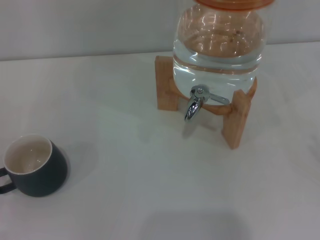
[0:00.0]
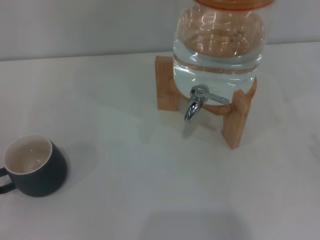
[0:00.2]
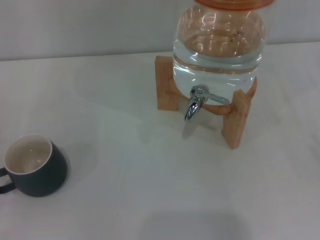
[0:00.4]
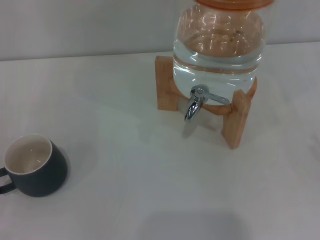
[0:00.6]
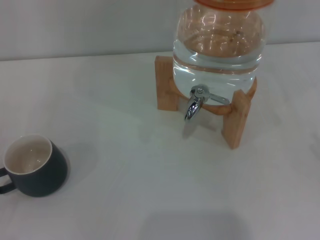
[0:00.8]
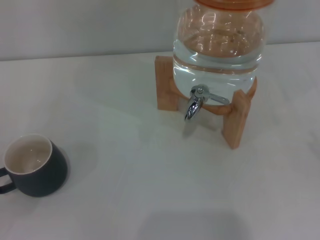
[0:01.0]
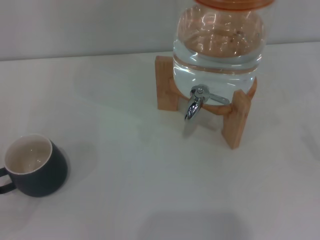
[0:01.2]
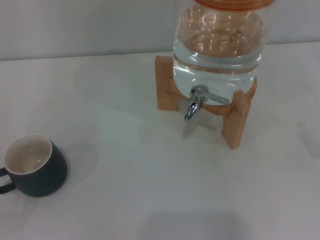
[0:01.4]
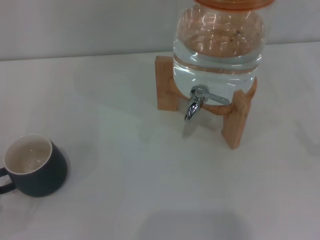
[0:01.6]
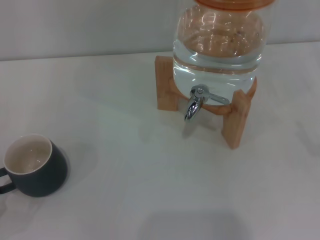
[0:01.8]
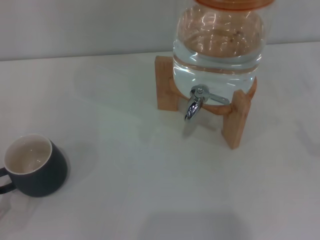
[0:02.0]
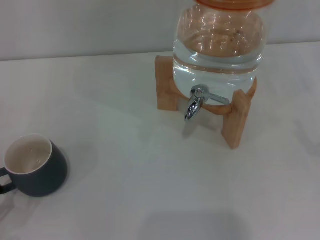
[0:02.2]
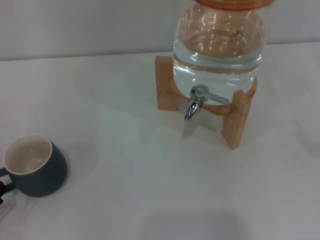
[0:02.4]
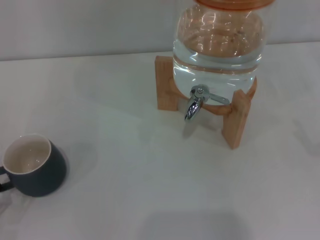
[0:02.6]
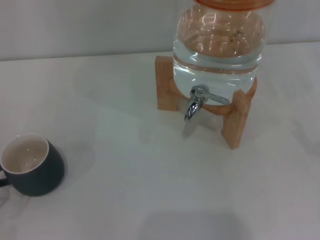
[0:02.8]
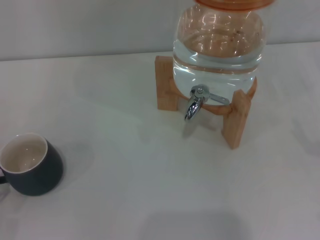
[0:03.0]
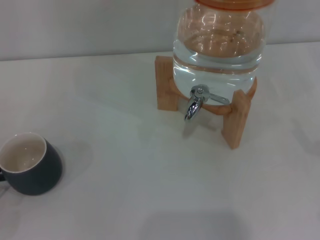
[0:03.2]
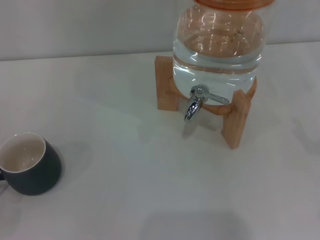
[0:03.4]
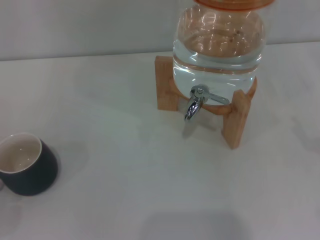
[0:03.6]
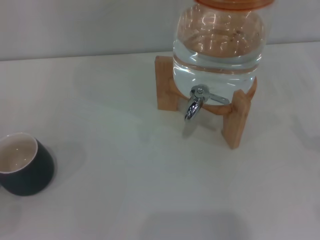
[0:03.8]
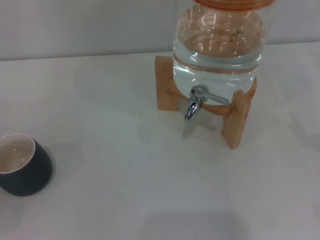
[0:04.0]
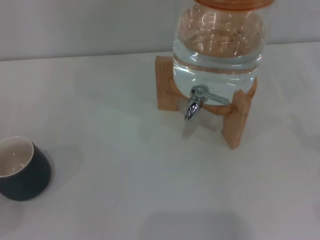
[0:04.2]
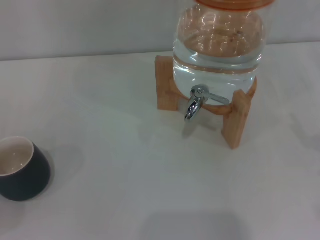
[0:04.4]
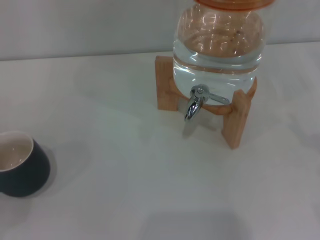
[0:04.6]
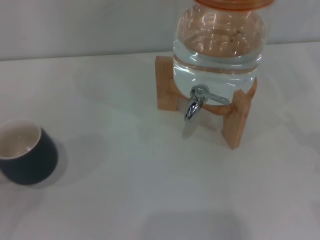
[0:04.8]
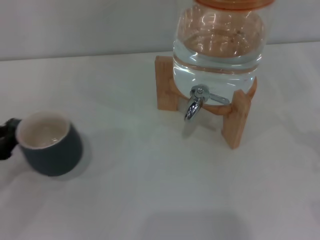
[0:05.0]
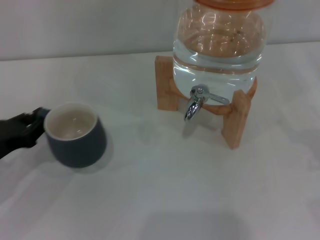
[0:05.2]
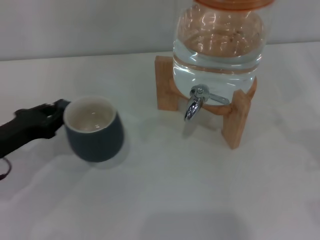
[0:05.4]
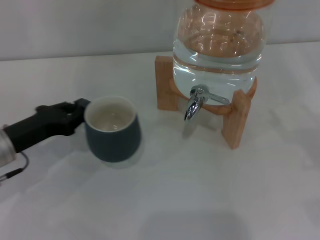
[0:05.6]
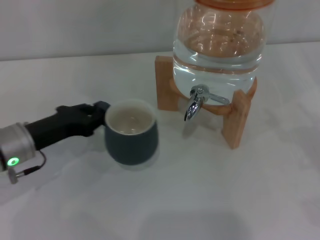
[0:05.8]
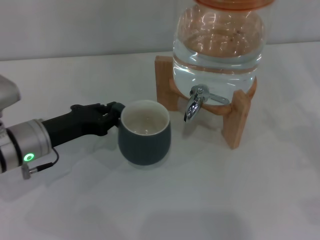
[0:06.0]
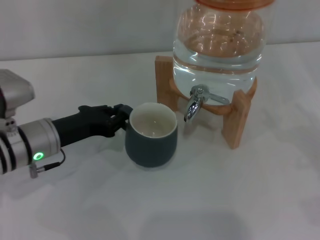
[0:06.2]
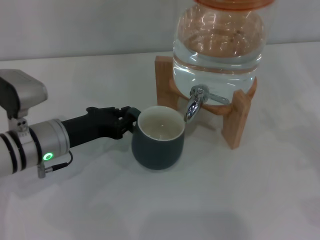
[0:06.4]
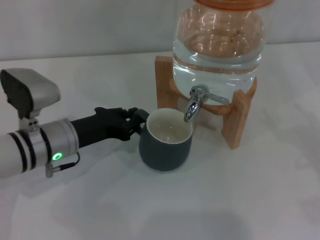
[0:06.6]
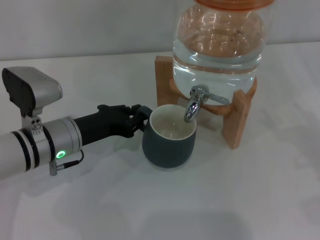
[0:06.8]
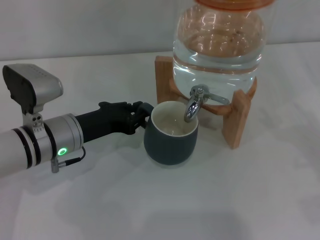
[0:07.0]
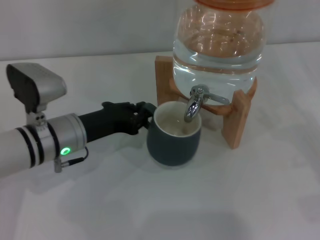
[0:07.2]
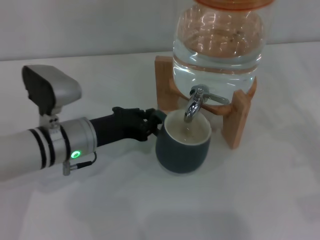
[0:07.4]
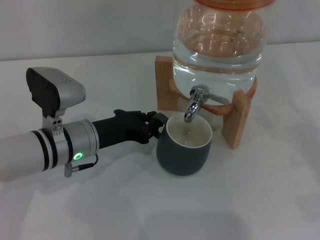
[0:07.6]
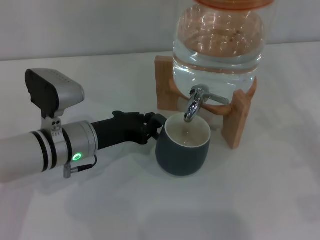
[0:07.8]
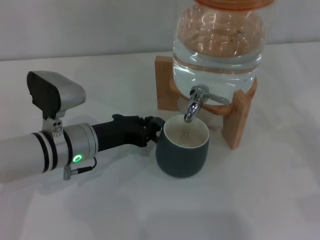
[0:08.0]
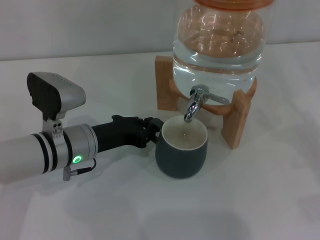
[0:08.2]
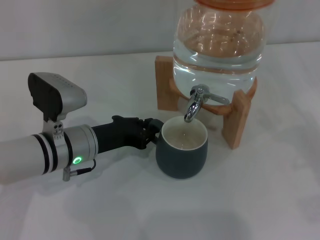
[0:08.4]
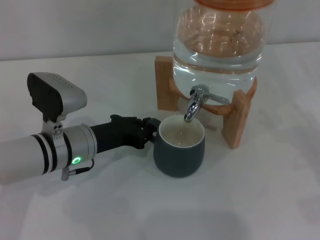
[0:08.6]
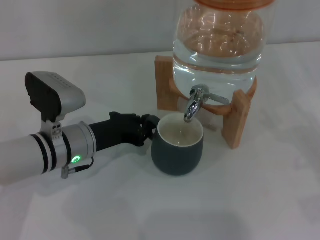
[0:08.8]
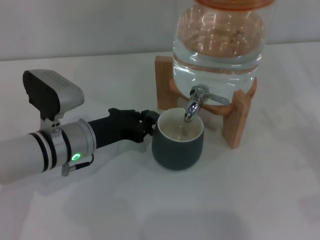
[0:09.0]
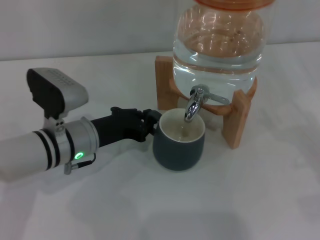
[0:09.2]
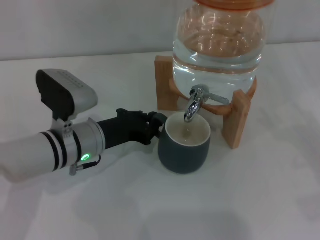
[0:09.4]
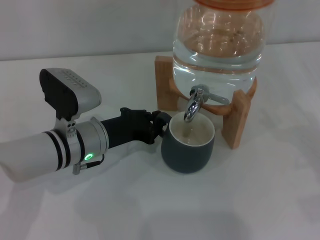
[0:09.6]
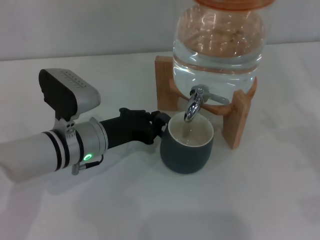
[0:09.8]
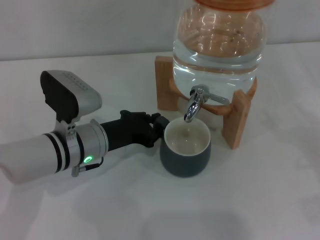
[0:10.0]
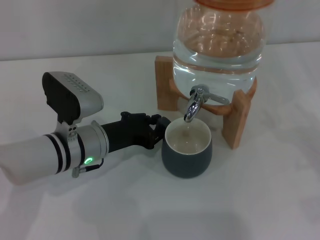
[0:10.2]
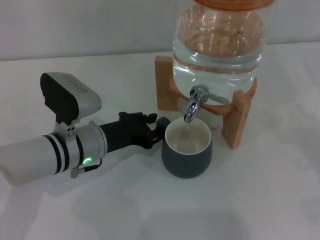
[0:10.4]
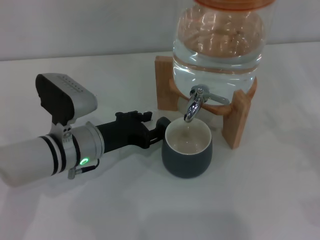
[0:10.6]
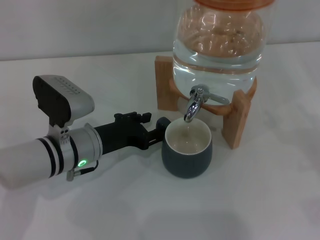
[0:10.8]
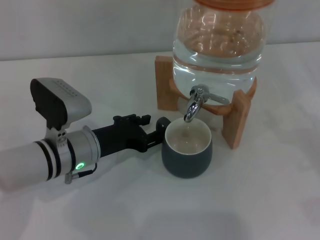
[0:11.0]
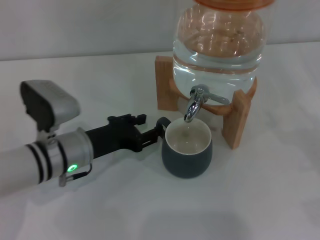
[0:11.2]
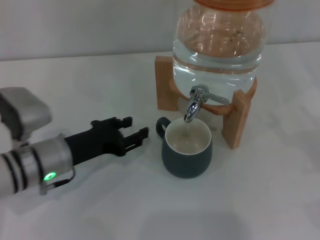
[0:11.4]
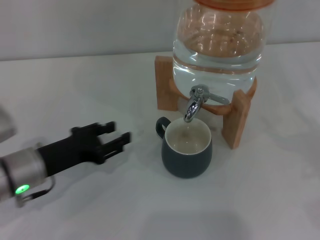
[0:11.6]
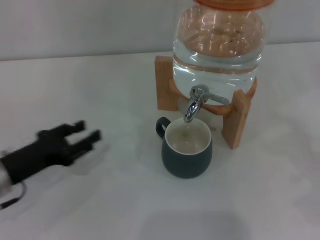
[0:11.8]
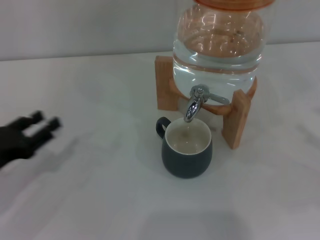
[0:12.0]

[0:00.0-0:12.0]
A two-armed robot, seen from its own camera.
Task of the whole recording: the left gripper pick up the black cup and place it horizontally under the faucet, the right gripper turn on the faucet to fill the cup, and then turn off the faucet.
Step, 0:00.0 to 0:11.2: Move the cup beneath the water dispenser nozzle with the left gripper.
0:01.6 to 0:03.0: The left gripper shifts by some 5 cm.
0:03.0 to 0:04.4: The left gripper closes.
0:04.4 to 0:06.0: The left gripper shifts approximately 20 cm to the right and forward.
0:06.0 to 0:07.6: The left gripper shifts roughly 5 cm to the right.
0:07.6 to 0:09.0: Both grippers stay put.
0:09.0 to 0:10.4: There are only small adjustments of the grippers.
0:10.4 to 0:12.0: The right gripper goes about 5 cm upward; the left gripper moves to the left and backward, roughly 20 cm, and opens its fingers.

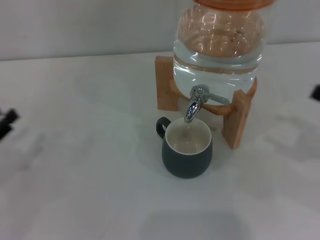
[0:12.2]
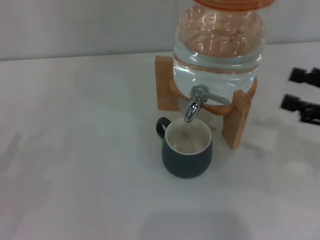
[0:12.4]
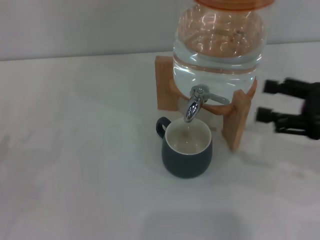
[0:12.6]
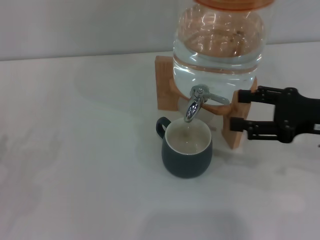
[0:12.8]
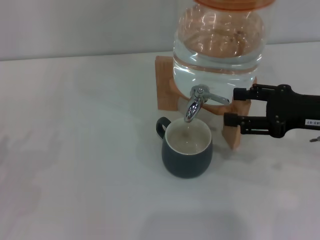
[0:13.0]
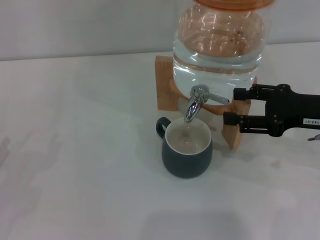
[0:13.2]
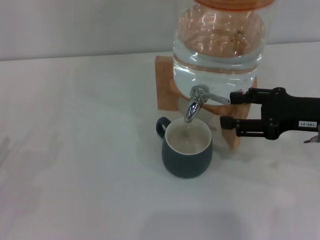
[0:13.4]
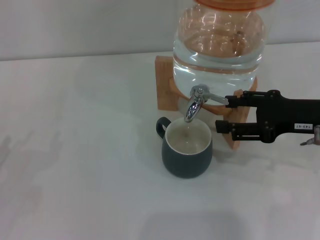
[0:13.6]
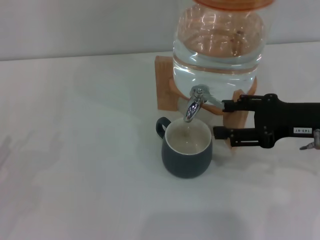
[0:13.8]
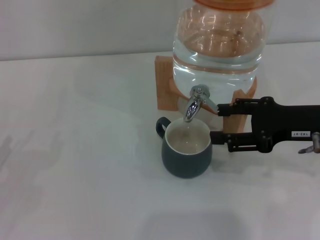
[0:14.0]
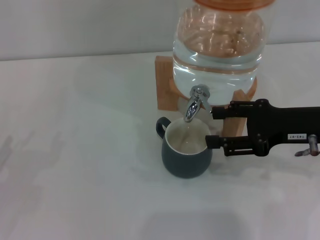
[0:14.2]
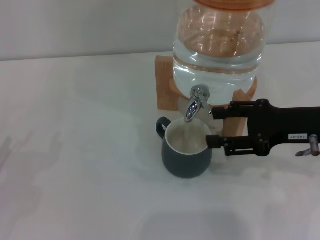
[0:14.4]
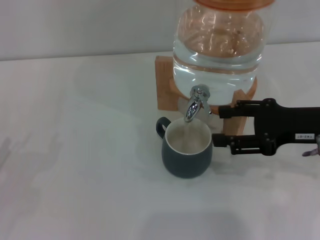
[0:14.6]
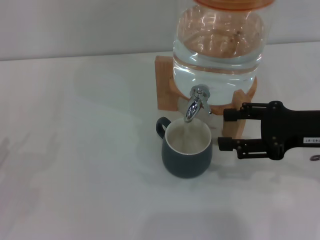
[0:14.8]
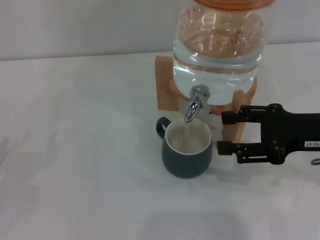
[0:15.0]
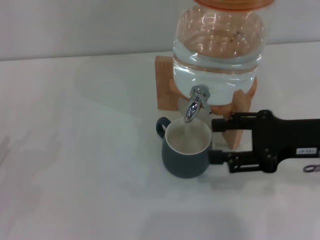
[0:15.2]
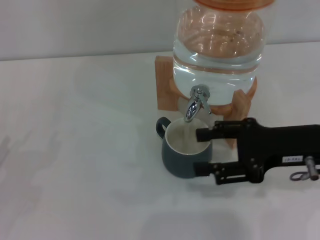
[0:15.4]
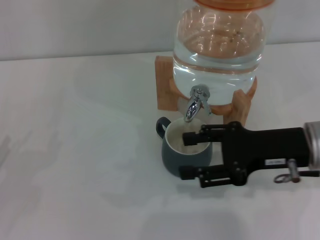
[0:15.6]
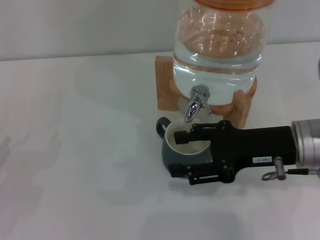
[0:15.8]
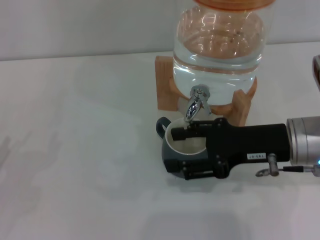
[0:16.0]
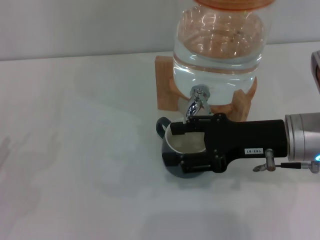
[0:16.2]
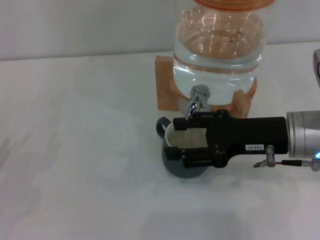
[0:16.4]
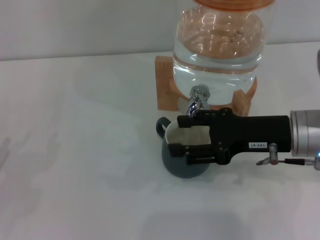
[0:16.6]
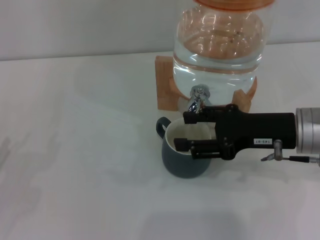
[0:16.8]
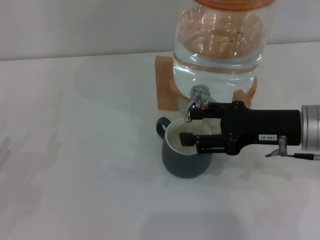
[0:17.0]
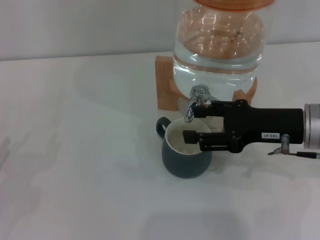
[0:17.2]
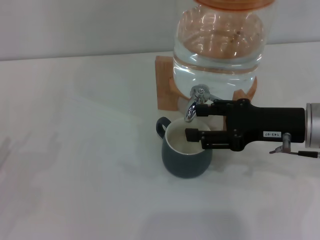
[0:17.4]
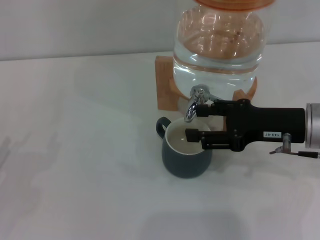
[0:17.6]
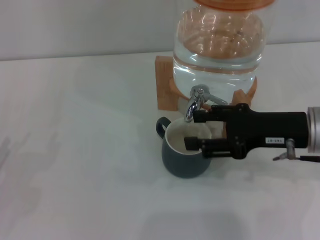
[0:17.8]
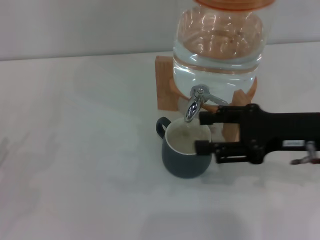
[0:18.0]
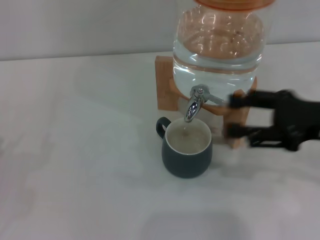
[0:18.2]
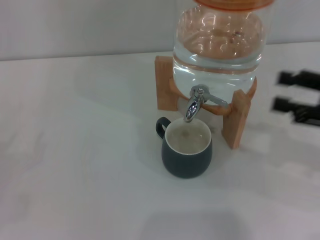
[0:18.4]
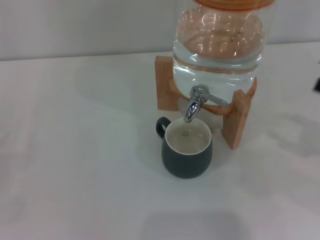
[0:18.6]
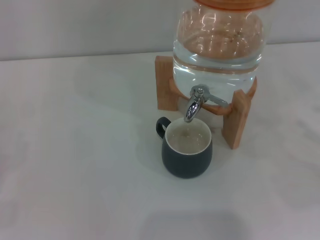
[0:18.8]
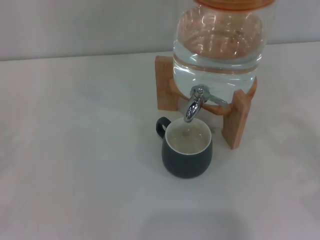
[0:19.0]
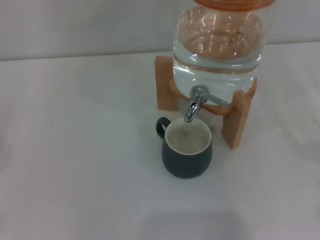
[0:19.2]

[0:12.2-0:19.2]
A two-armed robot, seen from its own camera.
Task of the whole recording: the left gripper pick up the black cup and place it horizontally under the faucet, the right gripper turn on the faucet to fill the cup, and then turn off the faucet.
Step, 0:12.2 to 0:14.4: Open the dispenser valve and fill the cup with water with the right gripper.
Step, 0:14.8 to 0:18.0: Close the dispenser valve with the right gripper.
0:12.2 to 0:13.6: The right gripper travels to the left and forward by approximately 10 cm.
0:13.6 to 0:15.0: The grippers make only small movements.
0:15.0 to 0:16.4: The right gripper shifts some 5 cm to the left.
0:16.4 to 0:17.8: The grippers make only small movements.
0:17.8 to 0:19.2: The right gripper heads to the right and backward, covering approximately 20 cm. Meanwhile the left gripper shifts about 5 cm to the left.

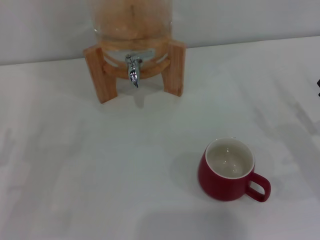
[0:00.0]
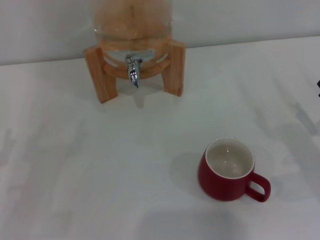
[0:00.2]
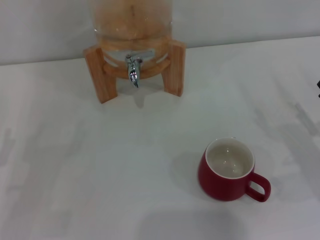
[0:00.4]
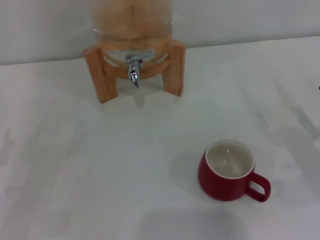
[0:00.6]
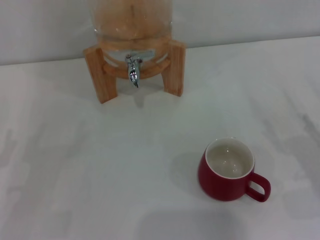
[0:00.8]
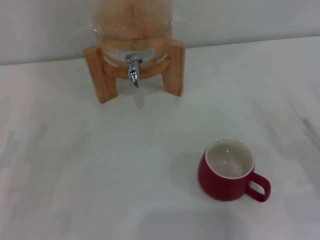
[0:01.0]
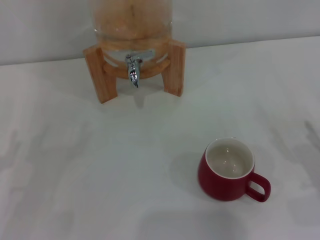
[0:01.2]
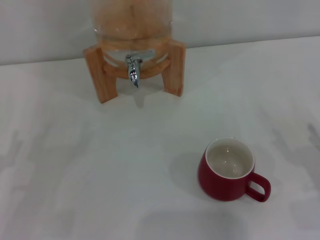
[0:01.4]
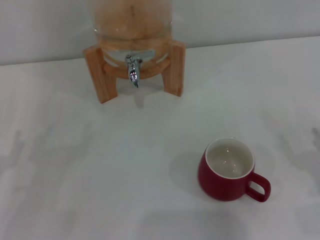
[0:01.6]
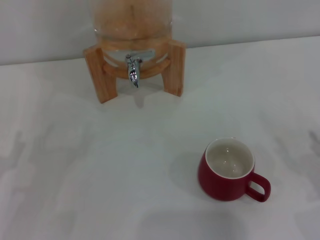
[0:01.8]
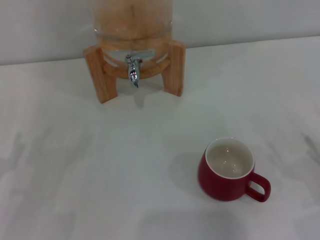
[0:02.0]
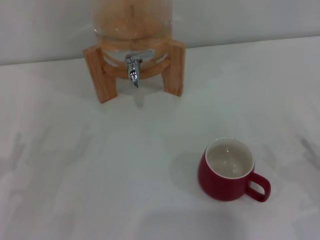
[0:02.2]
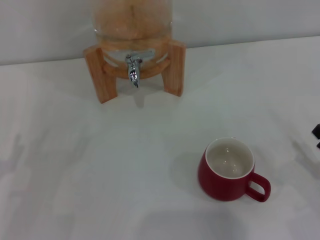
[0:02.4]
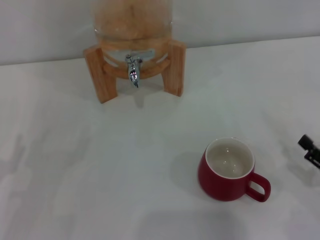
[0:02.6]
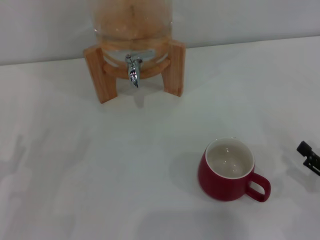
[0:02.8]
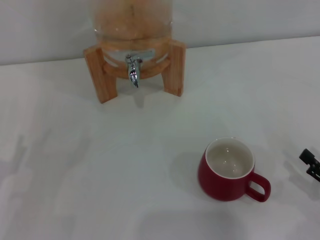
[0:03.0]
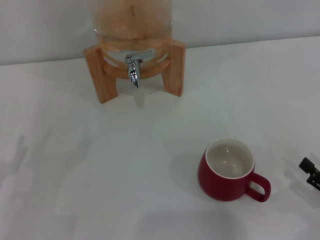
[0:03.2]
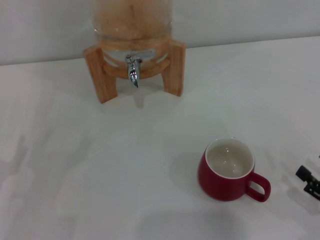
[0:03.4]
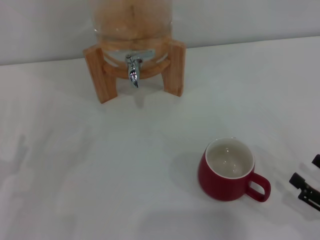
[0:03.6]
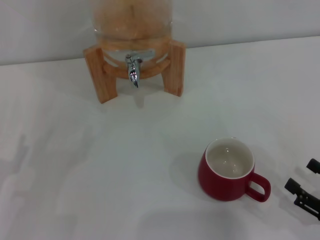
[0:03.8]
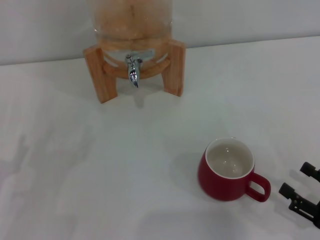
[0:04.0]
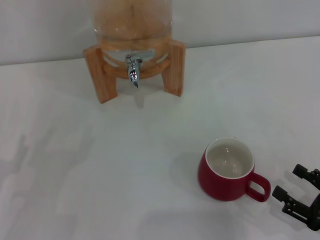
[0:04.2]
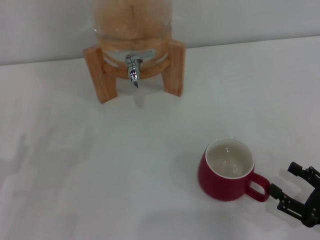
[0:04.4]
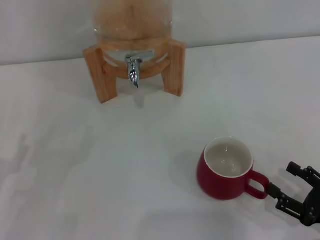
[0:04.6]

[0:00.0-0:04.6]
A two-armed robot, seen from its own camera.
Task of the whole recording: the right gripper pick up the red cup and place it horizontally under the faucet, the left gripper turn on the faucet to fill the cup, and then turn off the faucet.
0:01.6 to 0:03.0: The grippers make only small movements.
0:03.0 to 0:04.6: The grippers make only small movements.
